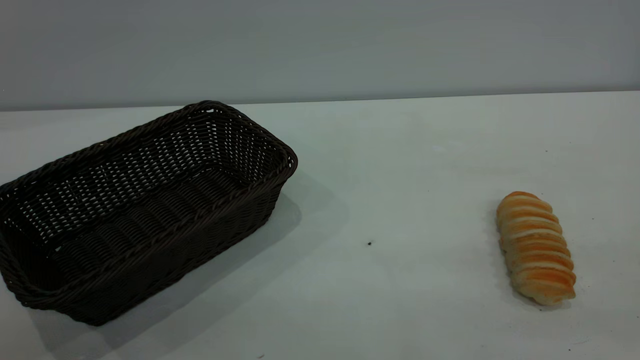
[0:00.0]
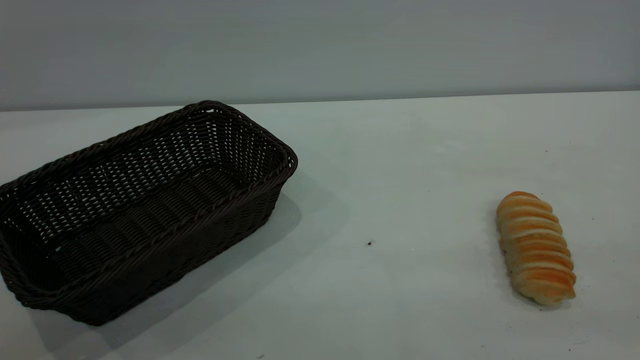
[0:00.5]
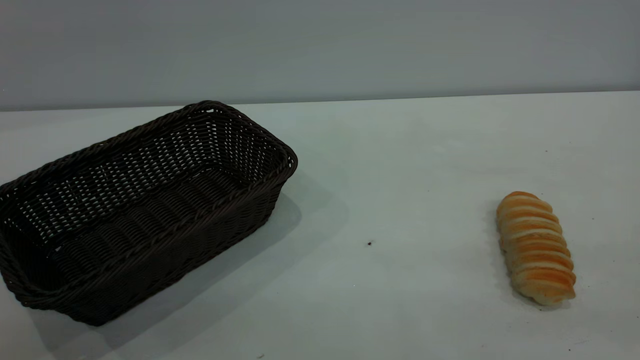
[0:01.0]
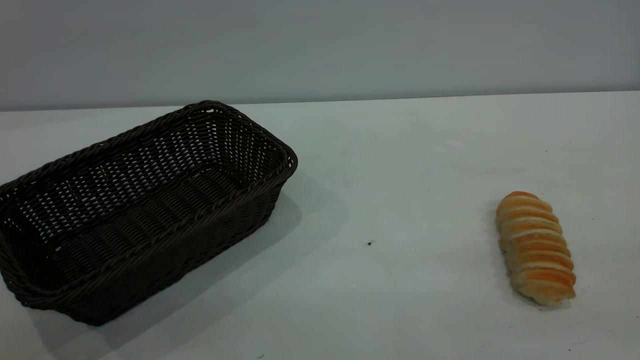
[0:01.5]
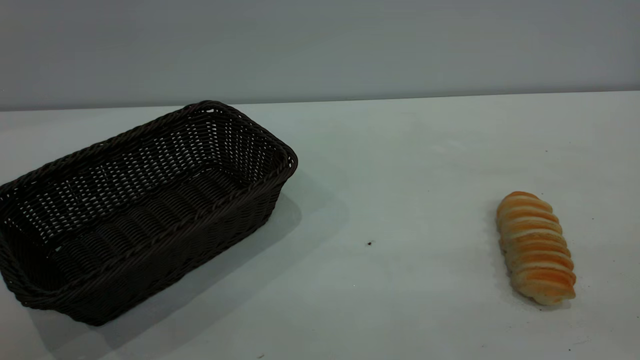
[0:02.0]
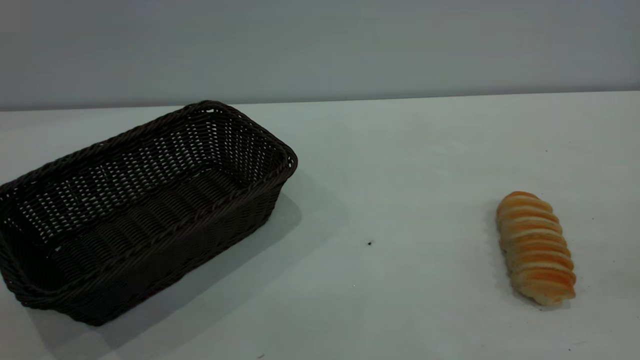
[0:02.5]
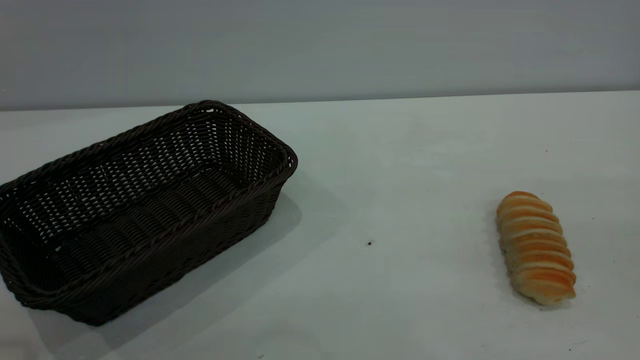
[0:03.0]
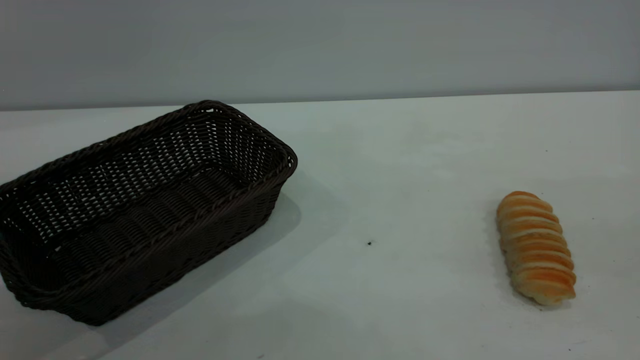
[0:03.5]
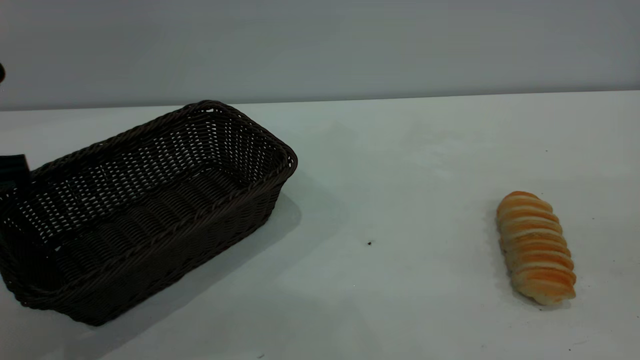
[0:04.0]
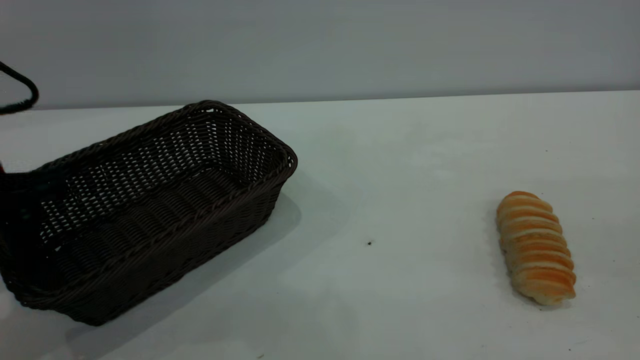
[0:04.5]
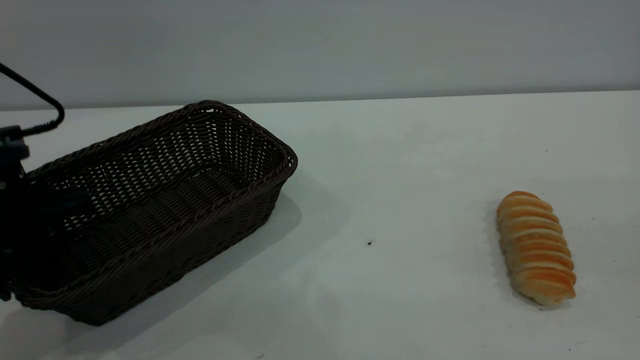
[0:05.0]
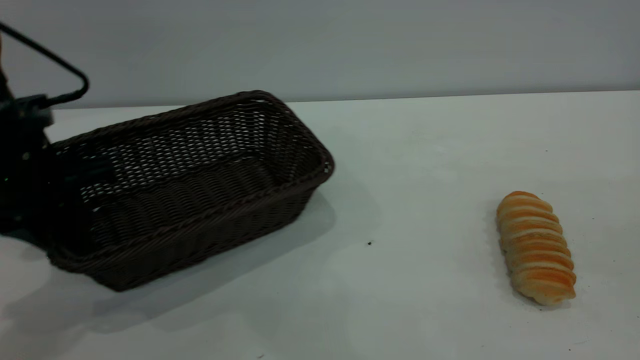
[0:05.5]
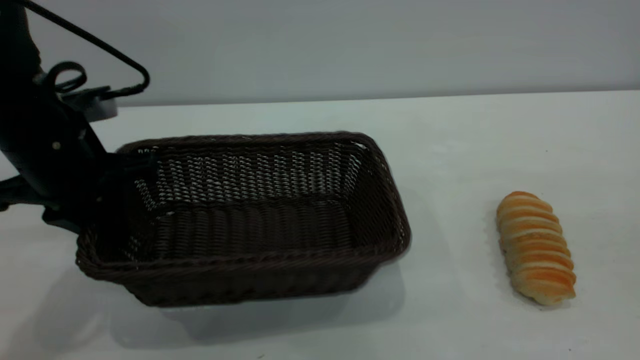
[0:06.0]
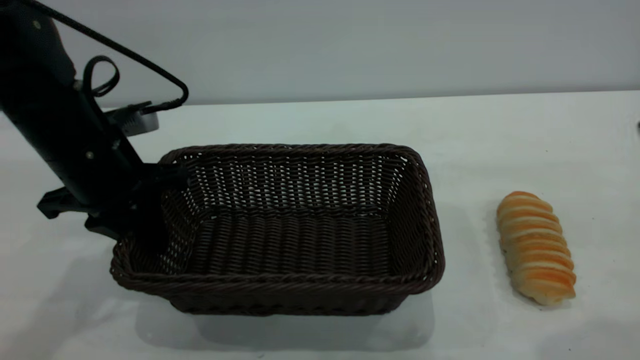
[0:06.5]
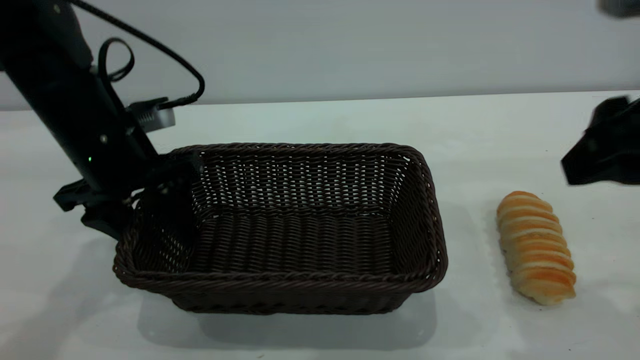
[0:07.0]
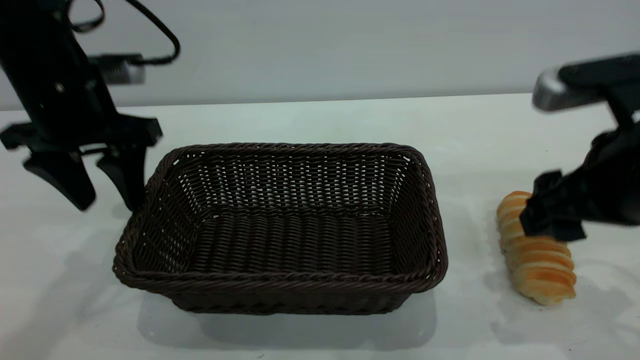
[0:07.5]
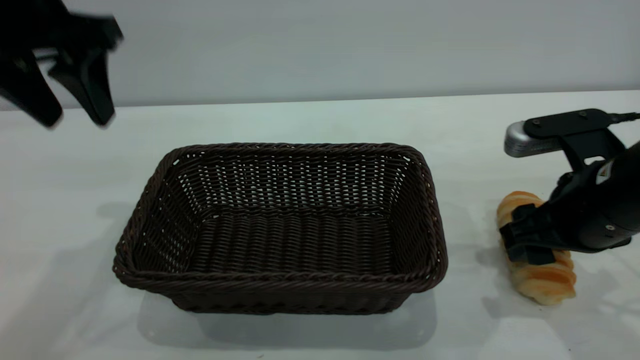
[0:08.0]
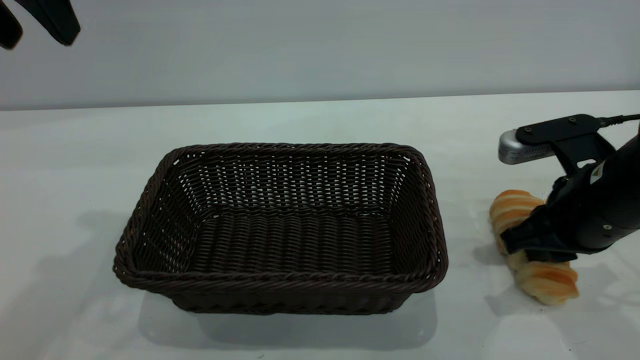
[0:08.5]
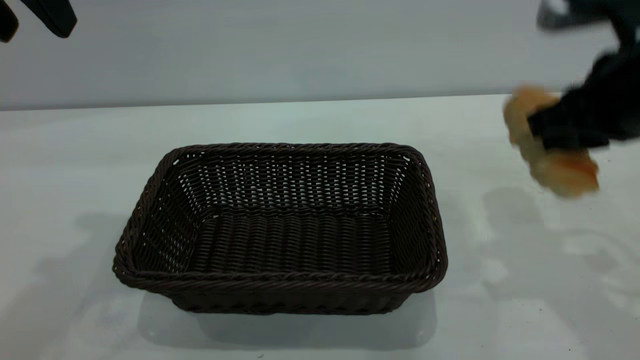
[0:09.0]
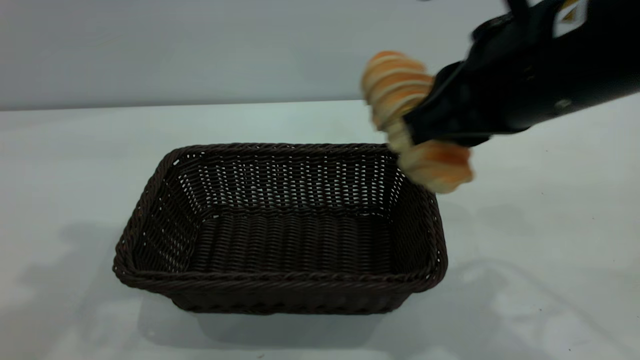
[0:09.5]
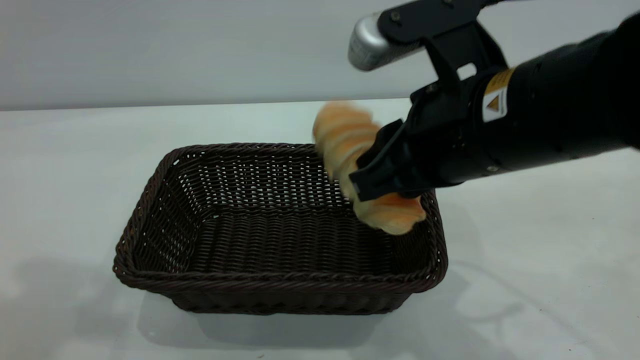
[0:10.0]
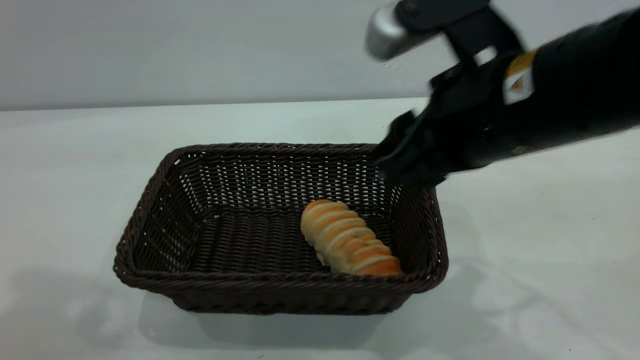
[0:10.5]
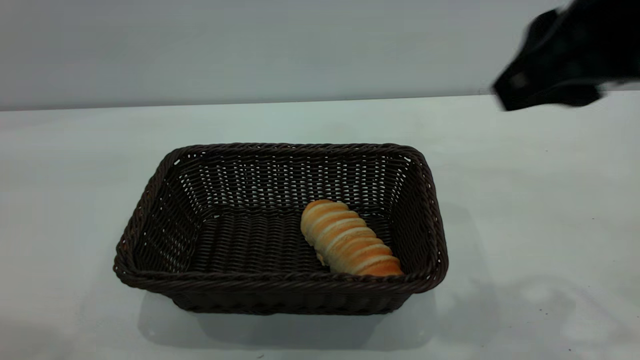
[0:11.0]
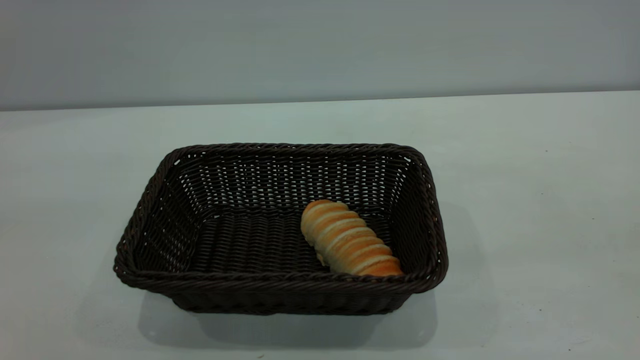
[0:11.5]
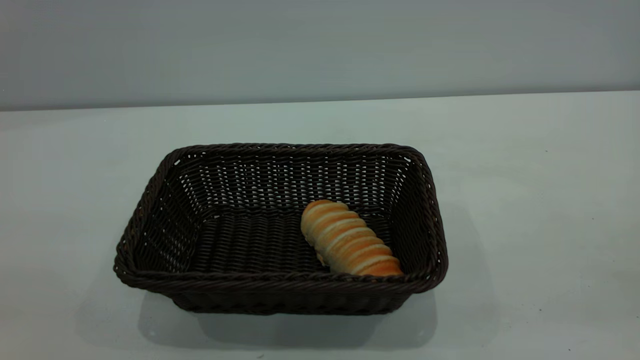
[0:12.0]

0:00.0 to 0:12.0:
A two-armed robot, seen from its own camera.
Task of the whole recording: One hand grasps the black basket and places it in the middle of the table, while the other hand picks up the long bread and puts it into the black basket.
Step, 0:00.0 to 0:07.5: Move the basket to the center of view.
Step, 0:09.0 to 0:10.5: place the bread into the basket.
0:04.0 to 0:06.0: The left gripper shifts about 10 cm forward and to the right, and closes its fingers.
0:06.0 to 0:08.0: The left gripper heads upward, covering about 15 cm, and opens its fingers. The right gripper goes roughly 30 cm downward and forward.
0:08.0 to 0:10.0: The right gripper travels to the left and upward by roughly 15 cm, and closes its fingers. The left gripper travels upward and backward by approximately 20 cm.
0:10.0 to 0:12.0: The left gripper shifts some 20 cm backward. Meanwhile the right gripper goes approximately 35 cm backward, to the right and upward.

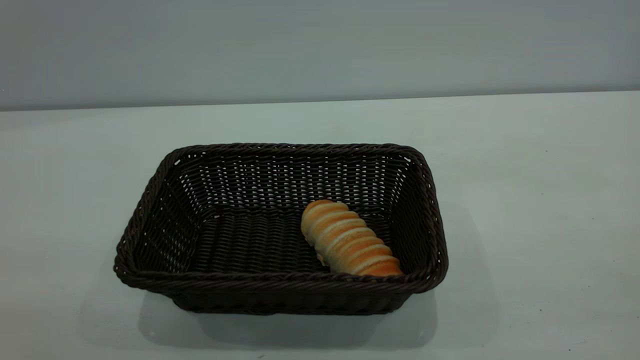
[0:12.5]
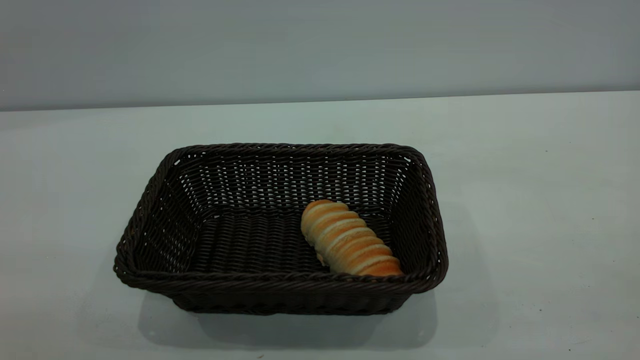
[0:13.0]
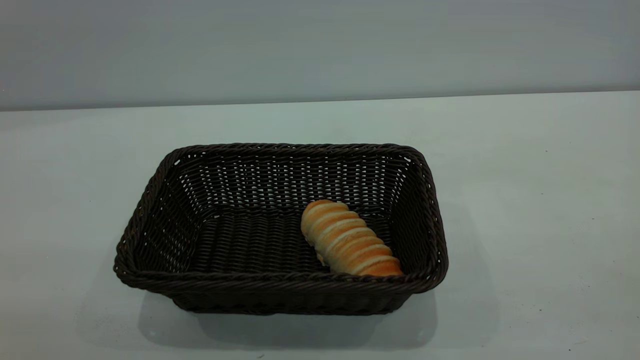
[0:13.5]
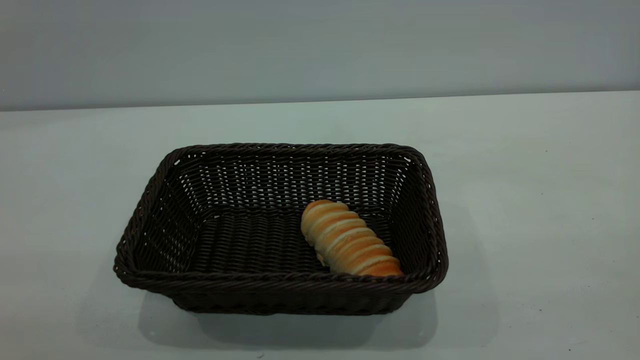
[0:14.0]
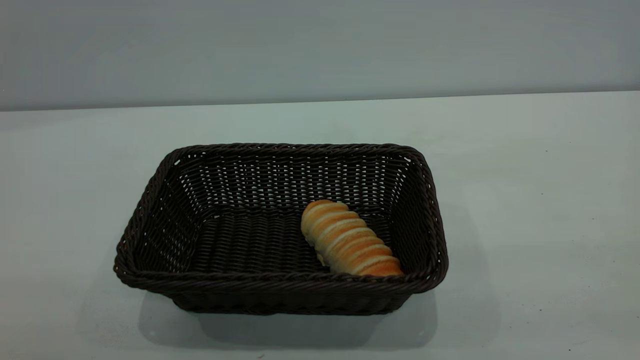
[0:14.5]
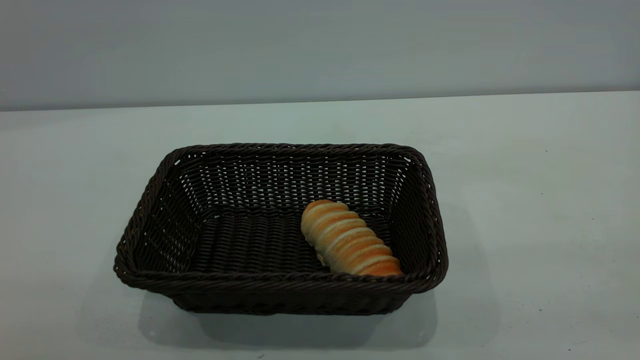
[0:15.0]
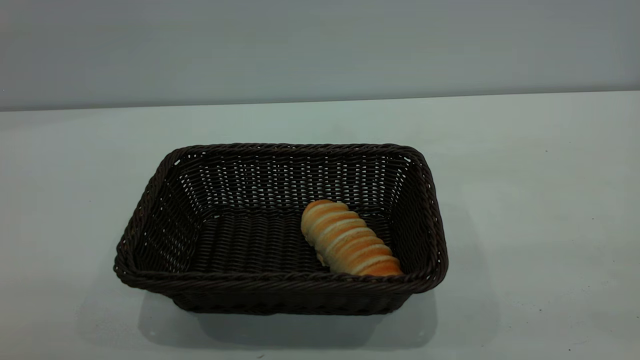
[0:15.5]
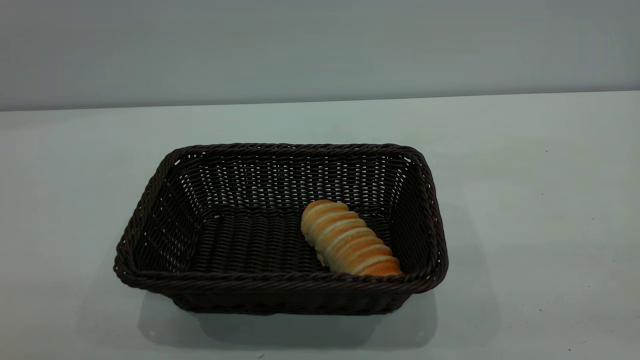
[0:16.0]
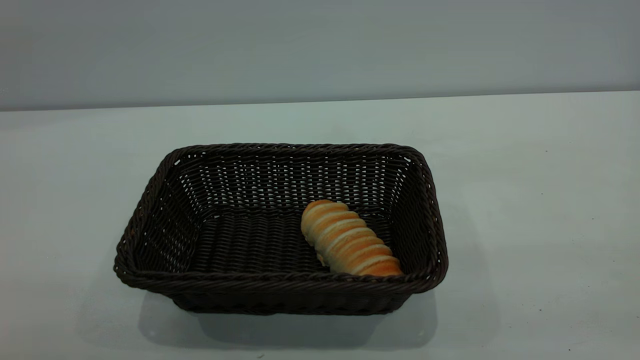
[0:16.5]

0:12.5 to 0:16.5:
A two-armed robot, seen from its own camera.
Task of the whole recording: One hand grasps the black basket and places it in the middle of the table, while the other hand picks up the long bread and puts it into the black basket.
0:14.5 to 0:16.5: The two grippers keep their place.

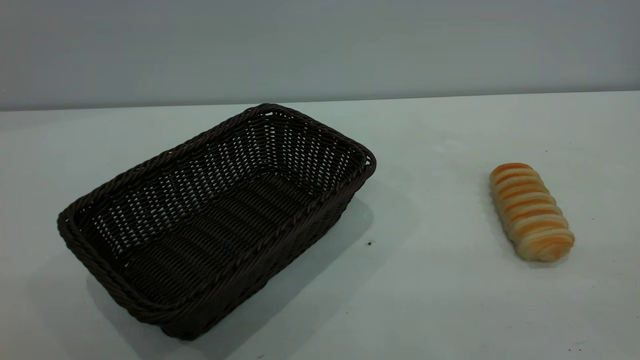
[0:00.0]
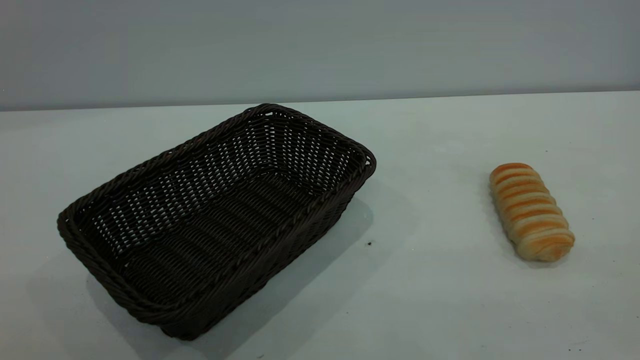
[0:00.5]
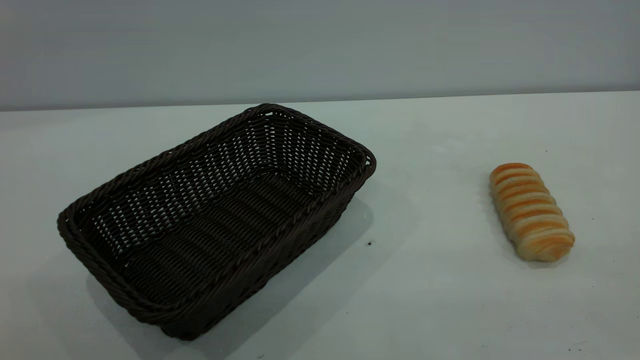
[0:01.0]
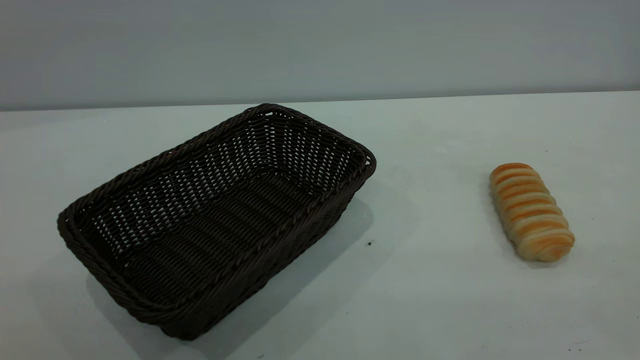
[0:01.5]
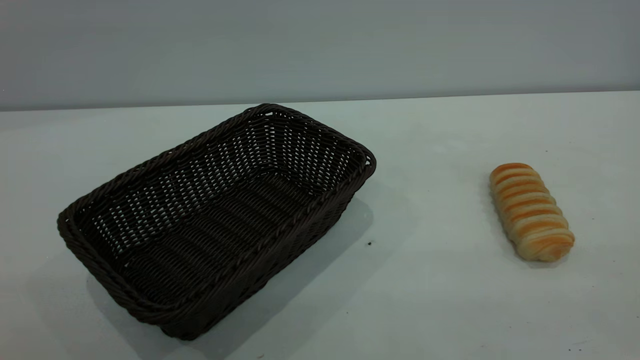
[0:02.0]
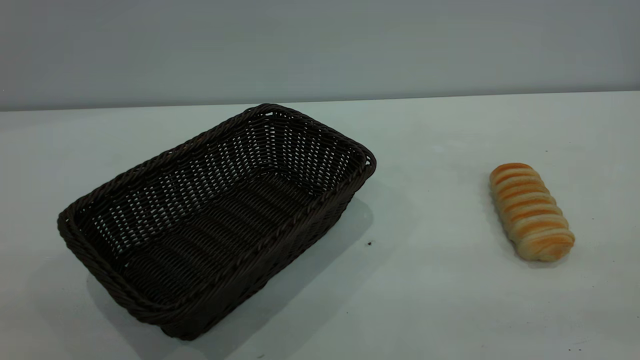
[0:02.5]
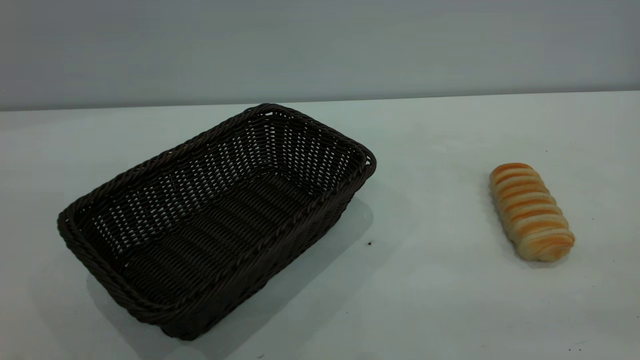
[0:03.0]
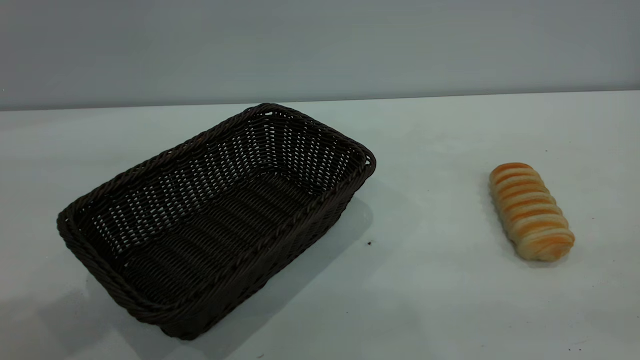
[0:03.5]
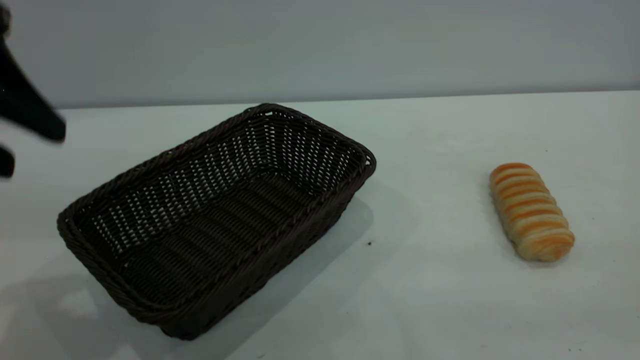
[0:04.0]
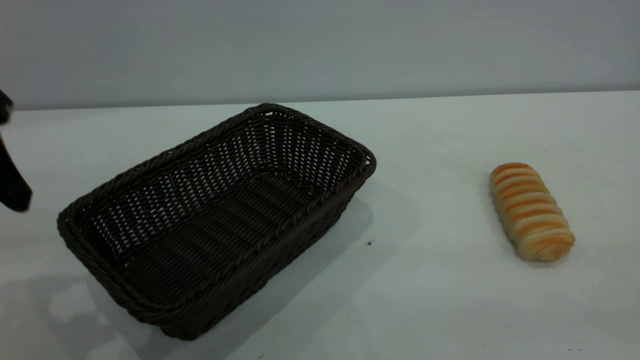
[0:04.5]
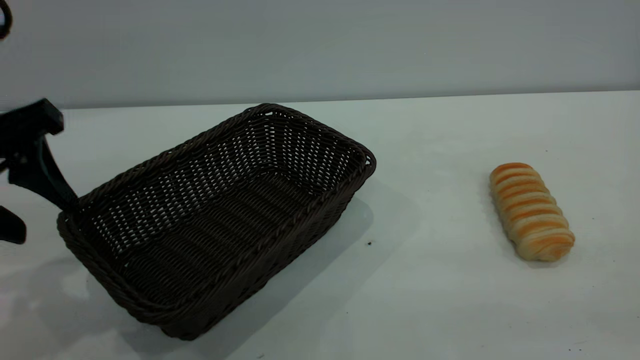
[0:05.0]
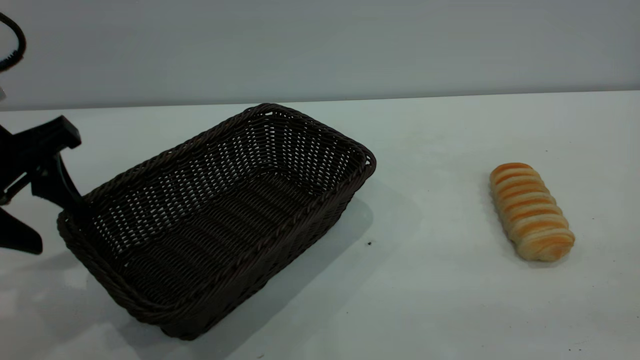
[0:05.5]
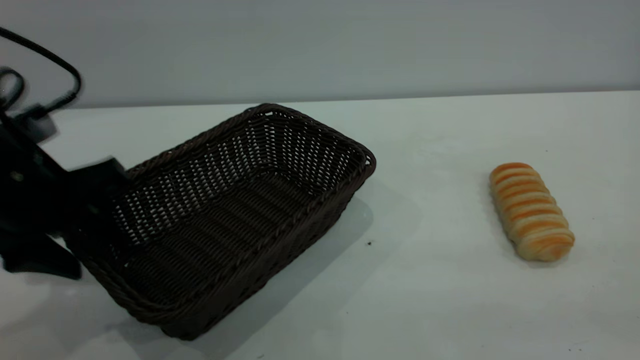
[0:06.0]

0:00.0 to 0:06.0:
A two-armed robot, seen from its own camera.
Task of the whole recording: One hand grasps the black basket and places it in the middle of the table, while the other hand picks up the long bread and puts it into the black basket.
0:00.0 to 0:02.0: The two grippers keep their place.
0:02.0 to 0:04.0: The left gripper goes some 25 cm forward.
0:04.0 to 0:06.0: The left gripper shifts some 15 cm downward.
